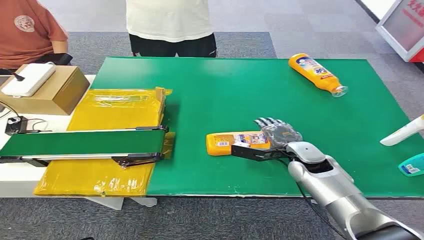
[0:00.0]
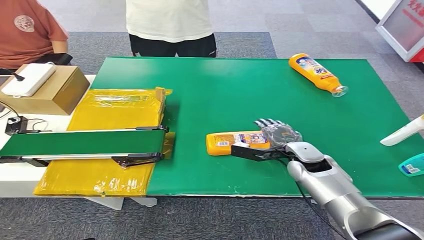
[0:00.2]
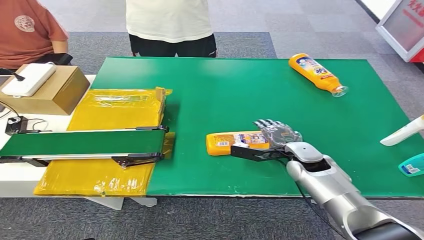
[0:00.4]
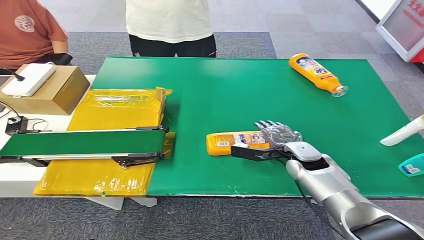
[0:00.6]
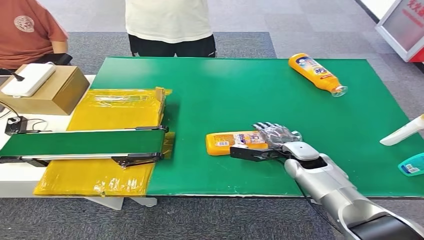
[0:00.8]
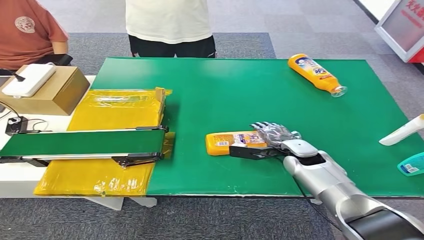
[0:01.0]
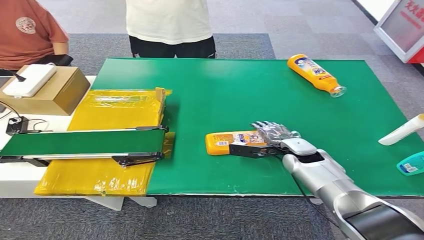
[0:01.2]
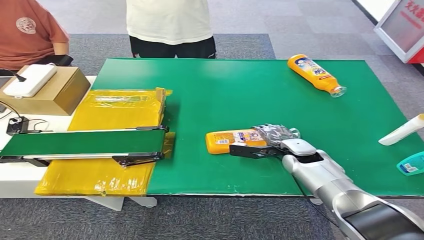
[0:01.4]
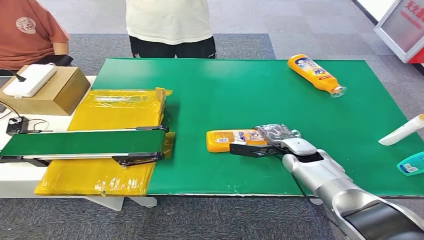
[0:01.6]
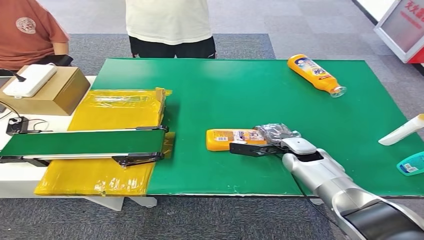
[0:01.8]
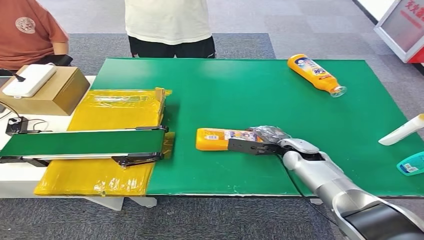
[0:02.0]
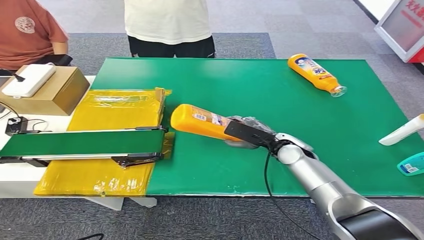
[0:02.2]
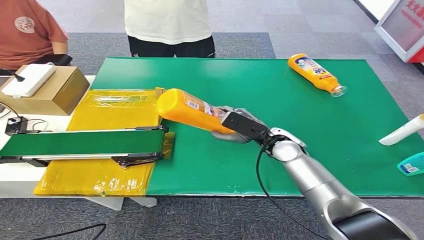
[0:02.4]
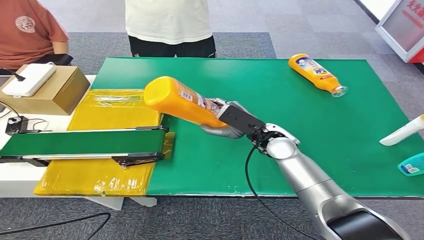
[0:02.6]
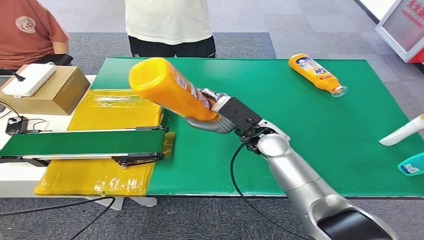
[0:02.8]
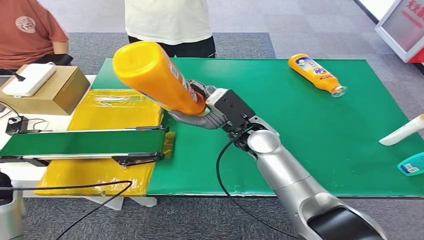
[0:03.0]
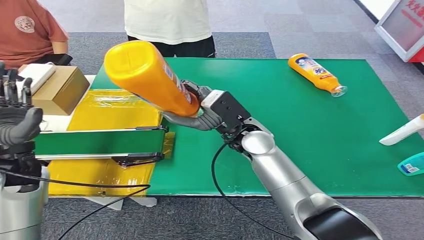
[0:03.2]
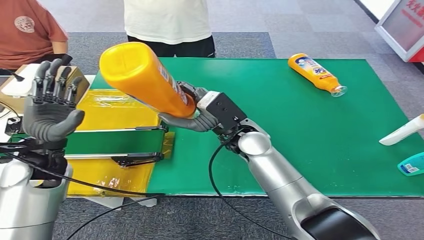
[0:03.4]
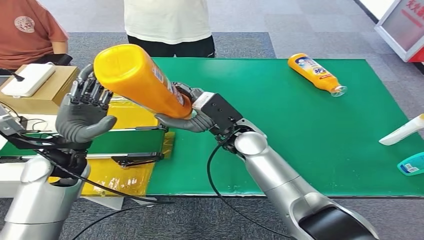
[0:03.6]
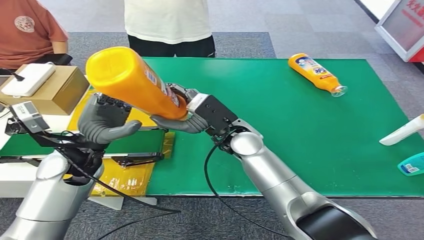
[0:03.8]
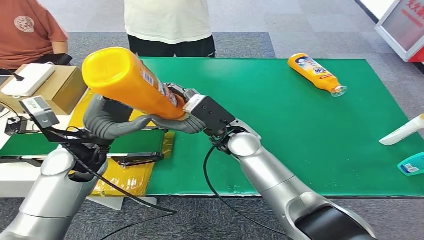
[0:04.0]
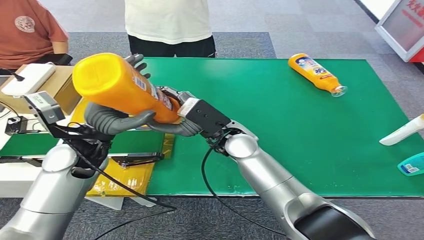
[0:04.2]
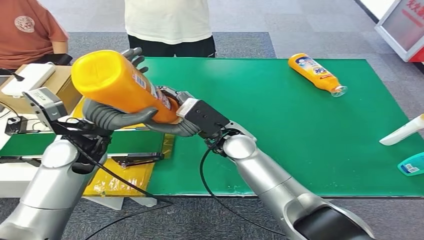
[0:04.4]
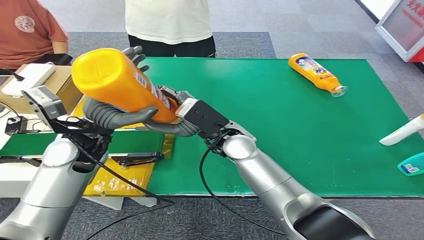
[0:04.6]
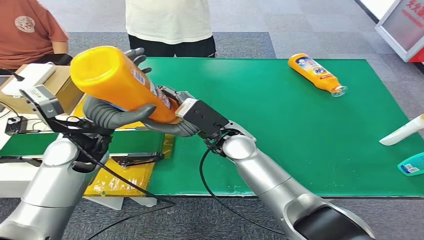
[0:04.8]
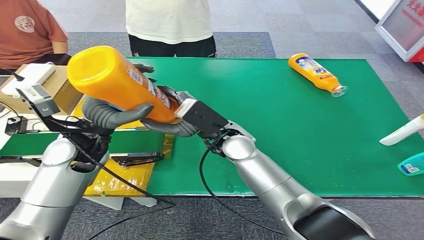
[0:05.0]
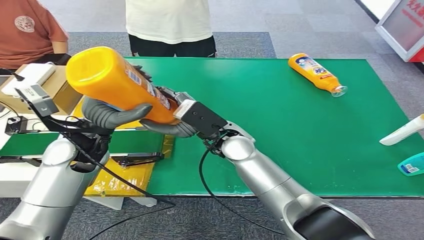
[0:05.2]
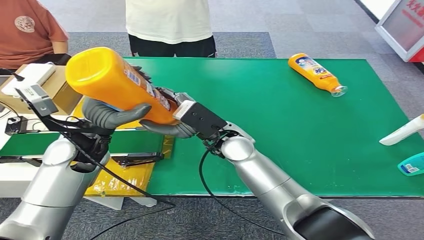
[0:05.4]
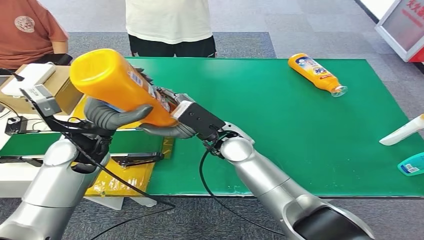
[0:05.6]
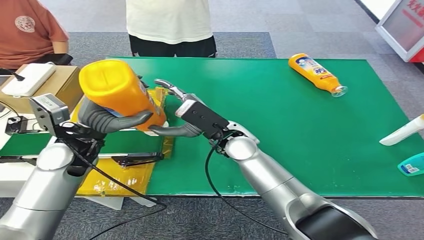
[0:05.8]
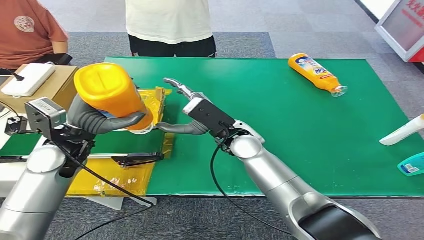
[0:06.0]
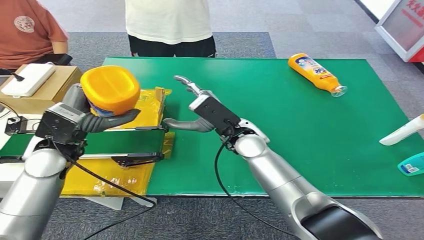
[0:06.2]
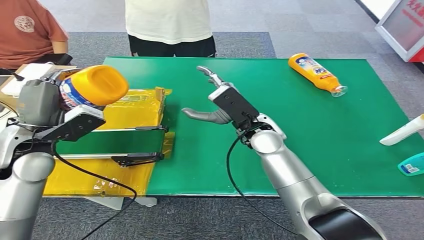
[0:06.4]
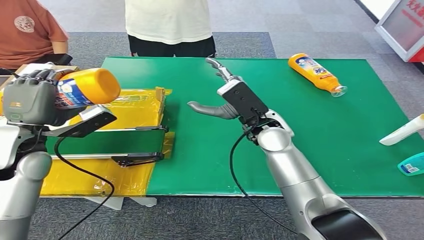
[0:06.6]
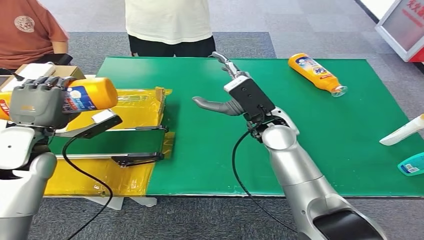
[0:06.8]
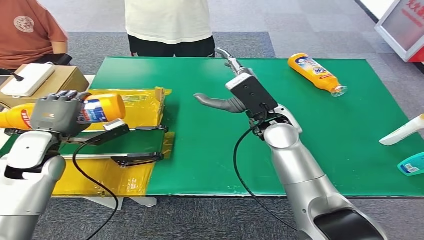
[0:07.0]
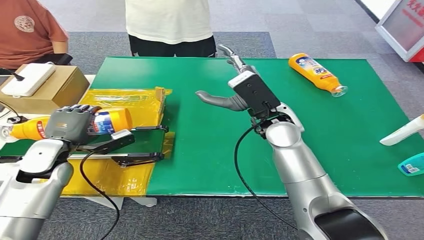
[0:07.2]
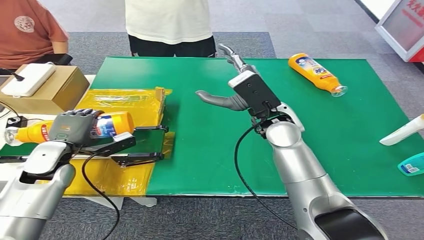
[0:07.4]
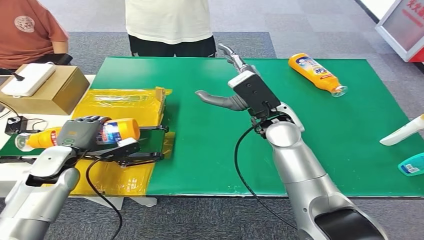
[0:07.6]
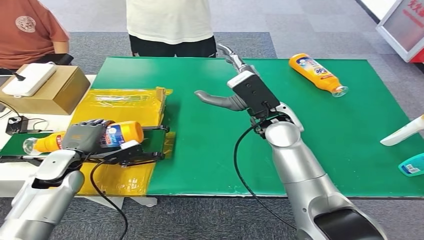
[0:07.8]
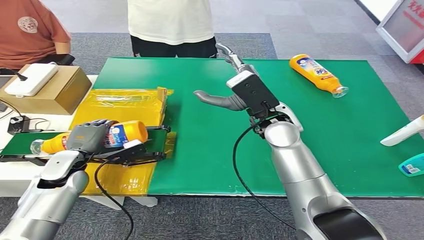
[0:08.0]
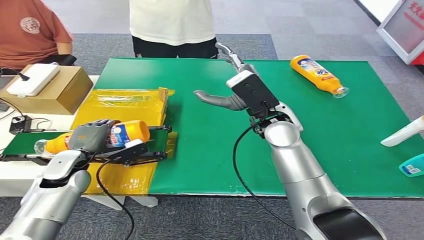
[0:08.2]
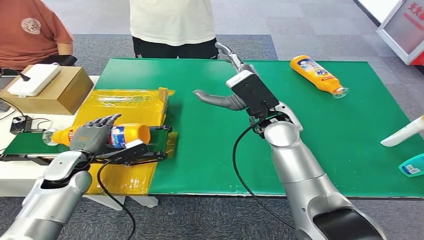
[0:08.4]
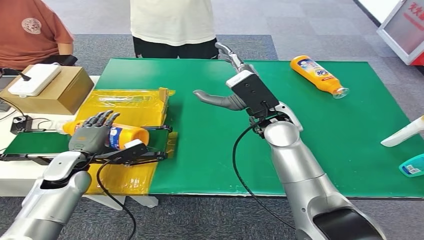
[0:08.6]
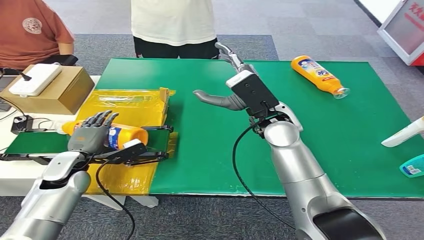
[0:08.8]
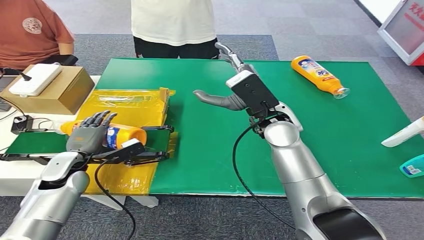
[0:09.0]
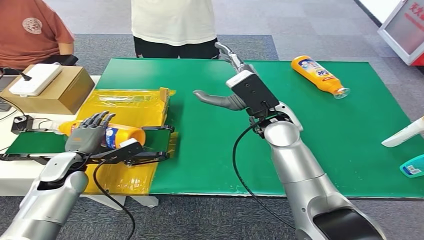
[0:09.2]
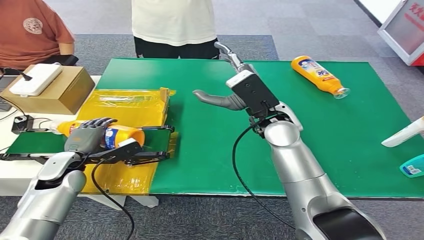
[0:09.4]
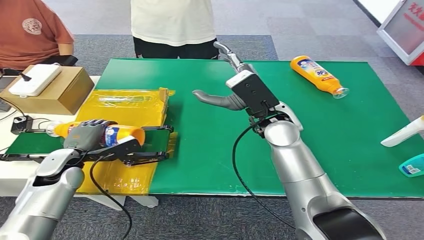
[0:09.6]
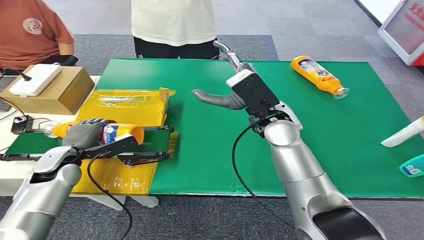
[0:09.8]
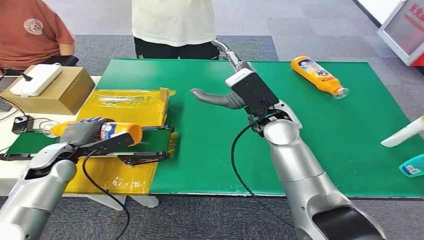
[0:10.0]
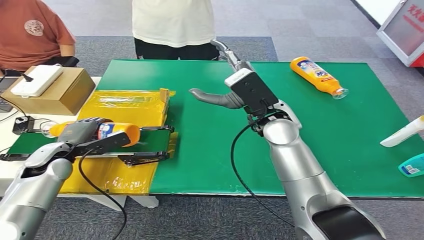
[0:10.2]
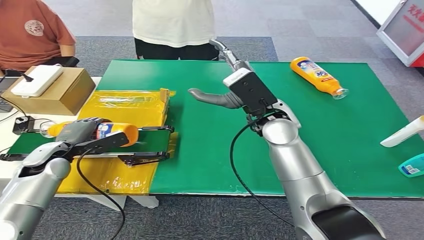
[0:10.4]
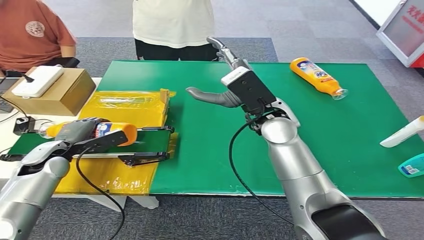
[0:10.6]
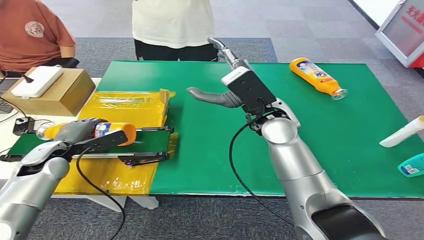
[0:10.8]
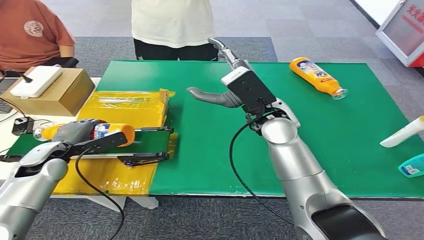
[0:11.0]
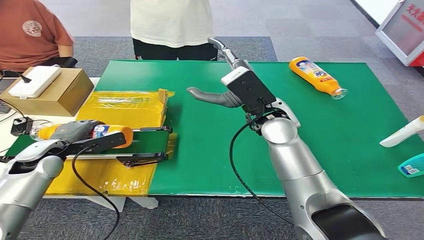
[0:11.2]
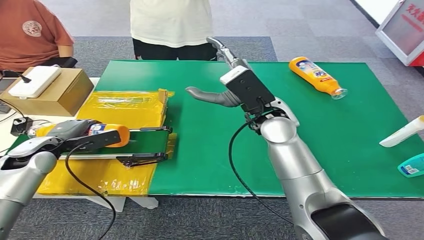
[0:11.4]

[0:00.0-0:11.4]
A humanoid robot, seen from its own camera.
Step, 0:00.0 to 0:03.0: Pick up the bottle from the table.
0:01.4 to 0:02.8: The right hand moves upward and to the left, roughly 15 cm. The left hand heads forward, covering roughly 10 cm.
0:04.2 to 0:05.6: The hands move only a little.
0:08.6 to 0:10.0: The hands stay close to where they were, moving slightly.
0:10.0 to 0:11.4: The left hand moves about 5 cm.

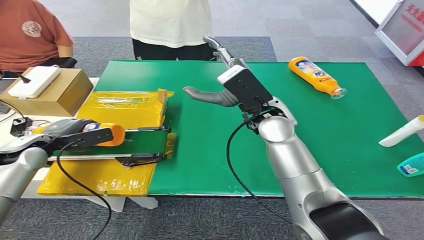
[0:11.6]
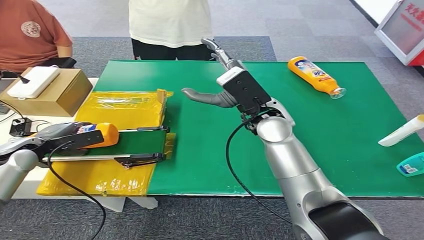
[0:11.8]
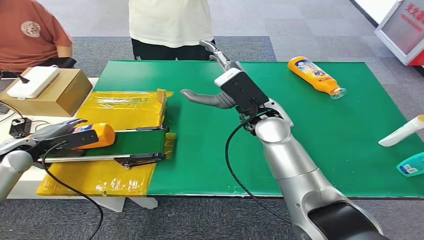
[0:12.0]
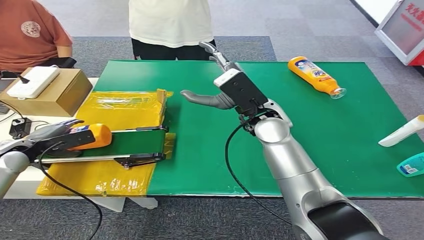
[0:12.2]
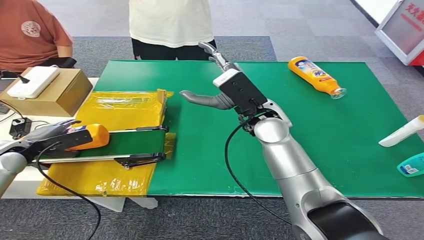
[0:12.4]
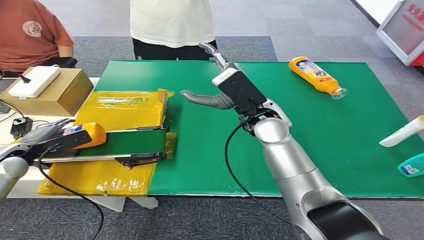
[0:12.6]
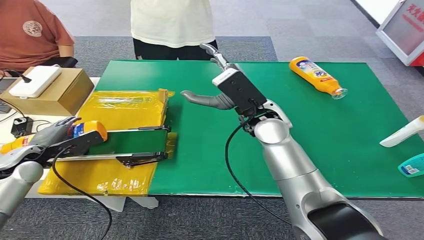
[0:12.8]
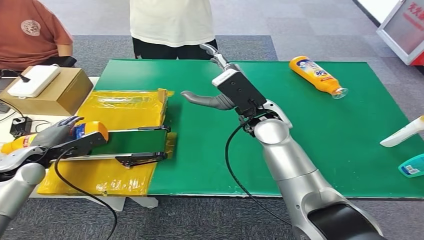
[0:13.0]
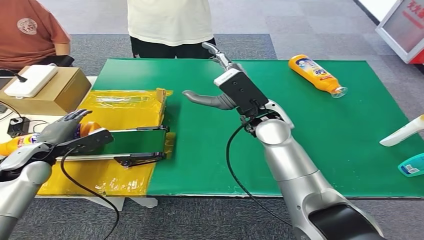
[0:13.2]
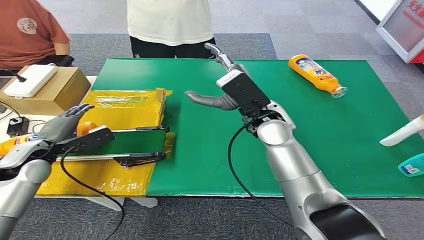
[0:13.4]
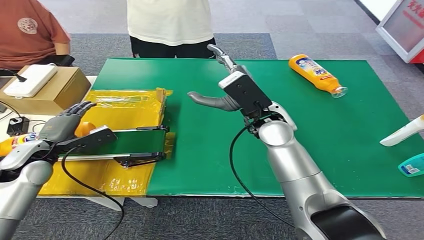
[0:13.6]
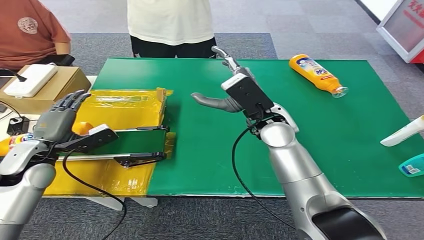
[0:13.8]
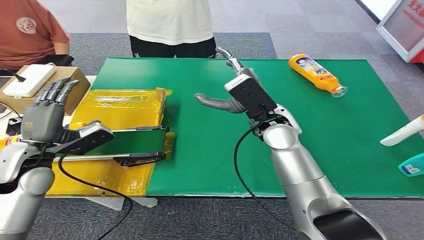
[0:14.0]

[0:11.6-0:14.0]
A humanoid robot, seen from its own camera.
Step, 0:11.6 to 0:14.0: Turn the bottle to the front side.
0:11.6 to 0:12.8: The hands move only a little.
